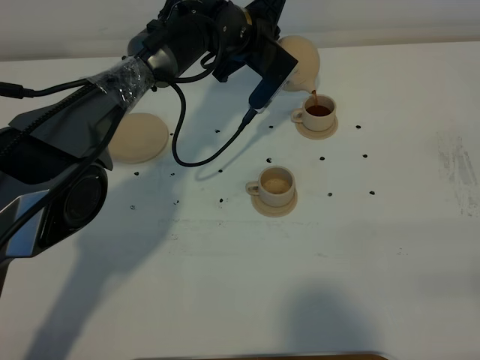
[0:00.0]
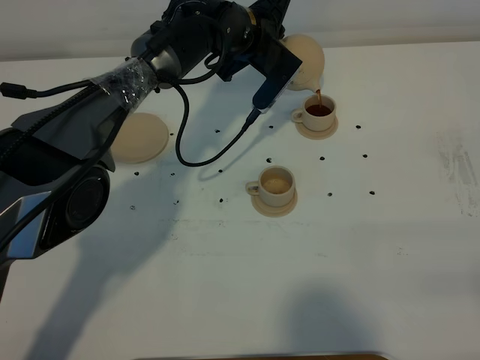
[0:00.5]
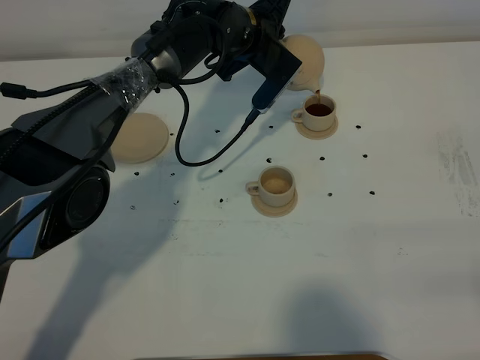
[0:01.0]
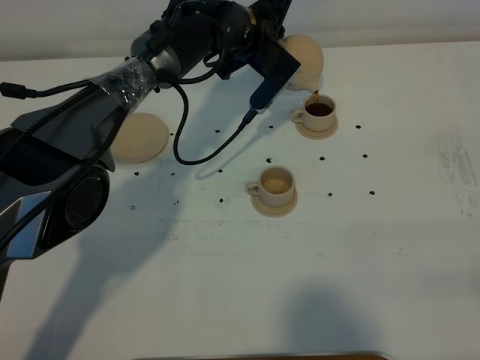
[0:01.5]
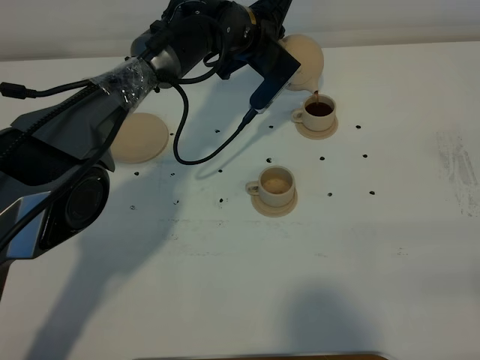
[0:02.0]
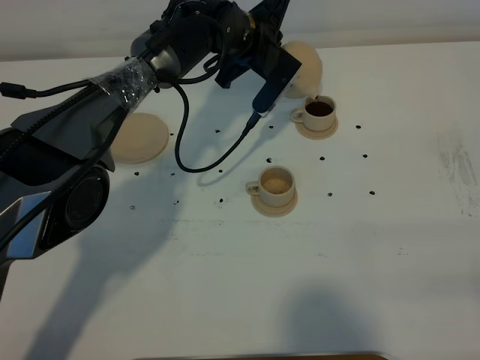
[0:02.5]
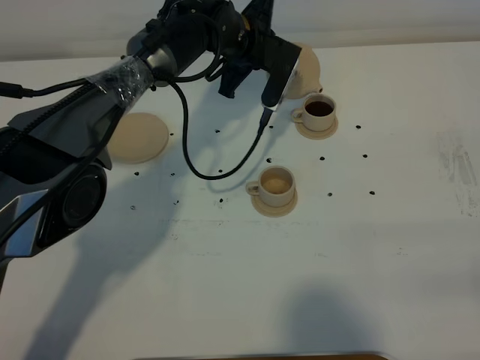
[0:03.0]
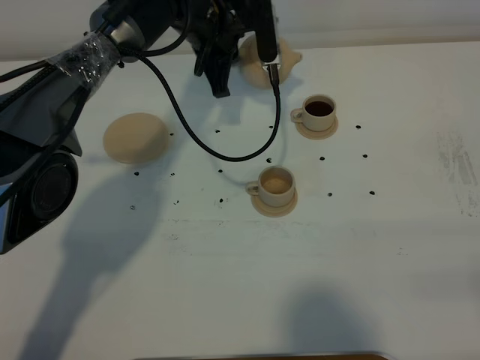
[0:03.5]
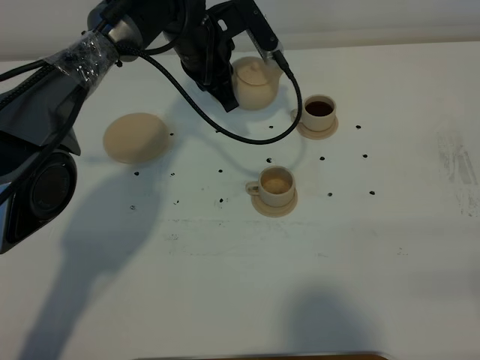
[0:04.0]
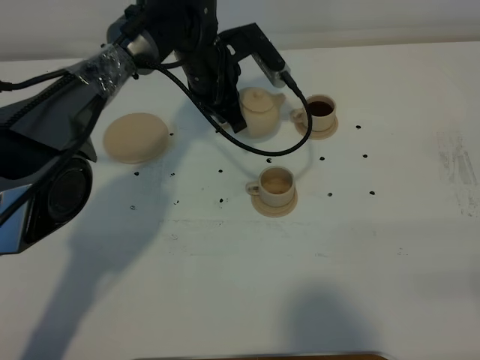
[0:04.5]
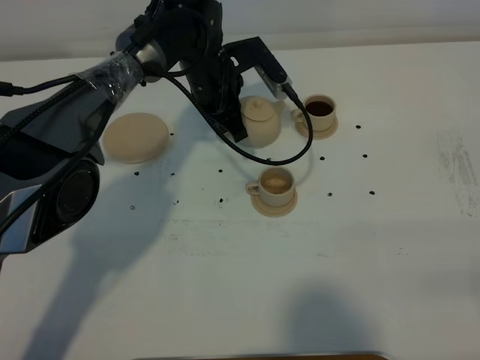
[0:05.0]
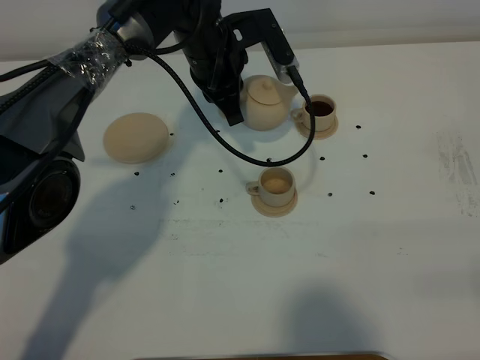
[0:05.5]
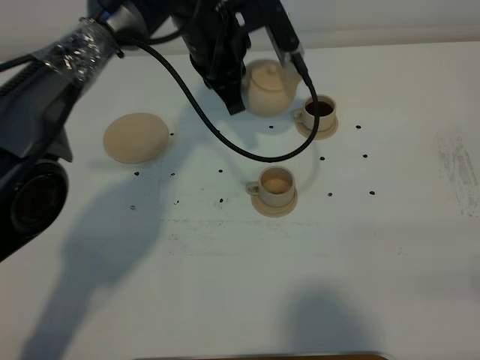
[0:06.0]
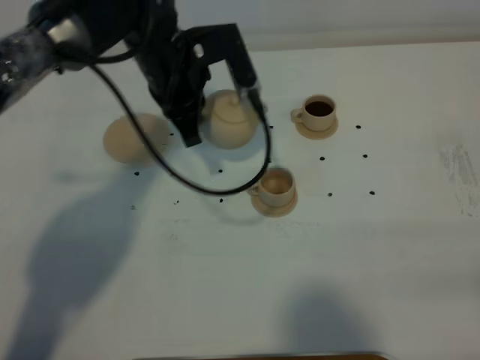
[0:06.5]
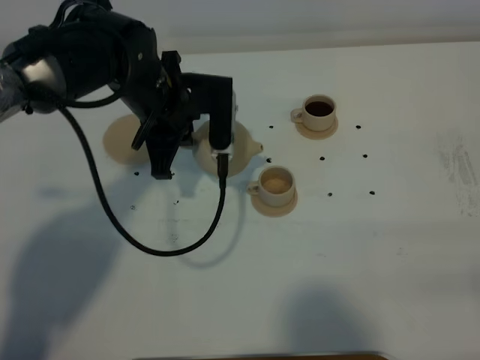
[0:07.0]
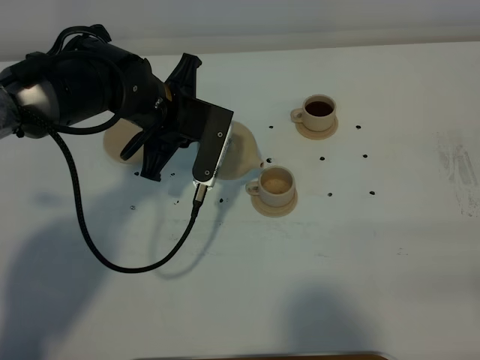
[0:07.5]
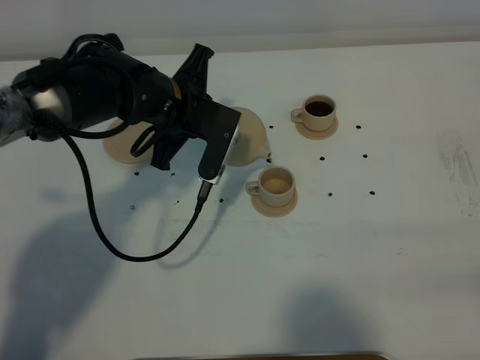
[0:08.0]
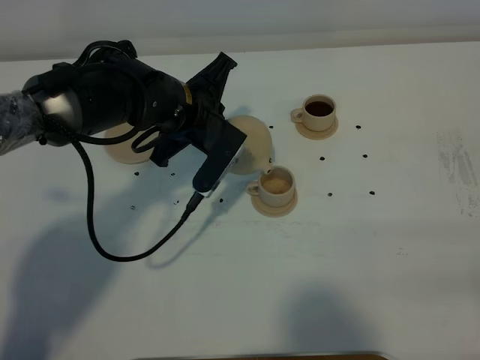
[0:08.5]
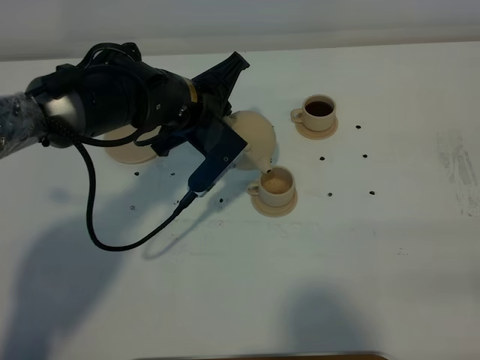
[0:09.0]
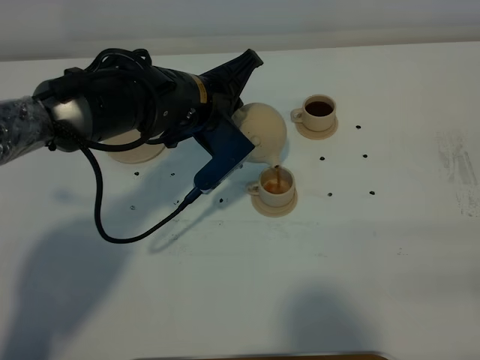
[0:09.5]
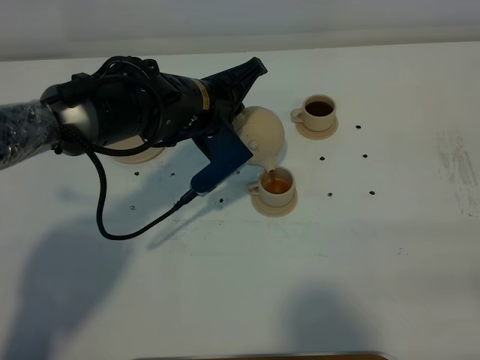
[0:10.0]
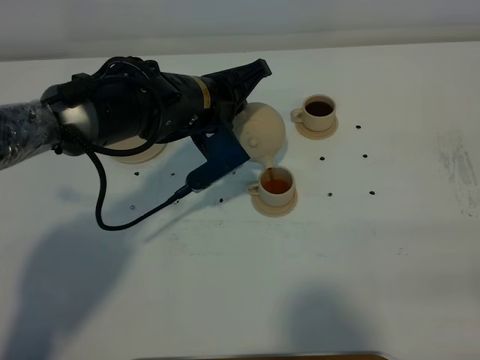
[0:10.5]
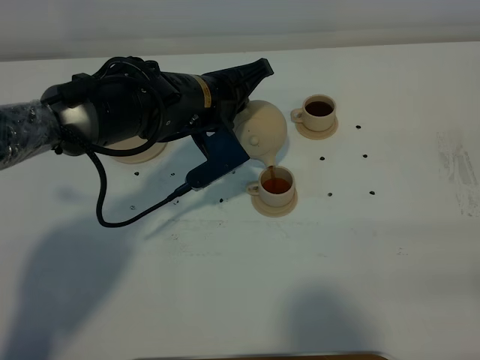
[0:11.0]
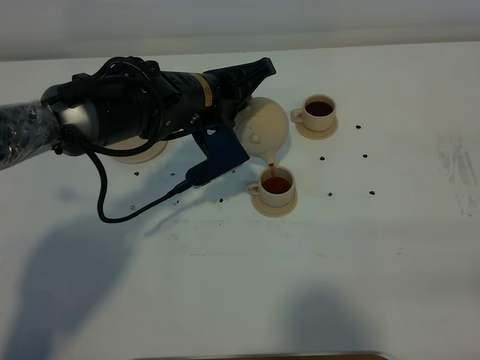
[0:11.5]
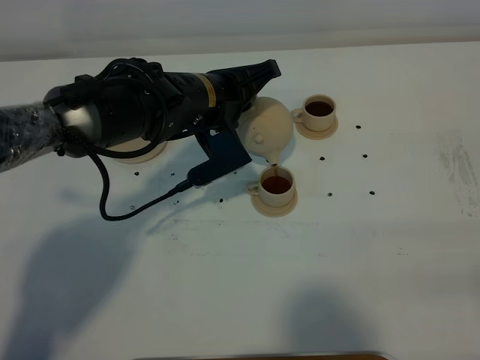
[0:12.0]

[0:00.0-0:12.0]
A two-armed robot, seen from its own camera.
Task of the whole recording: grasp the brown teapot and pour the tea into the two brown teacups one by one, put the brown teapot back in its original place.
0:00.0 to 0:02.0: Neither gripper changes place.
0:02.0 to 0:04.0: The left gripper travels to the left by roughly 5 cm.
0:04.0 to 0:06.0: The left gripper moves upward, some 5 cm.
0:06.0 to 0:08.0: The left gripper travels backward, downward and to the left by roughly 10 cm.
0:10.0 to 0:12.0: The grippers stay close to where they were, moving slightly.

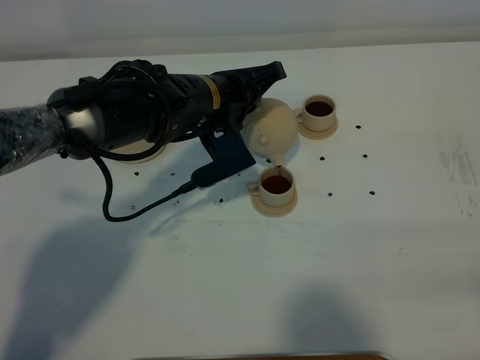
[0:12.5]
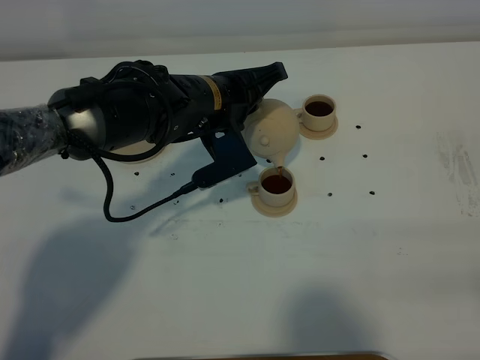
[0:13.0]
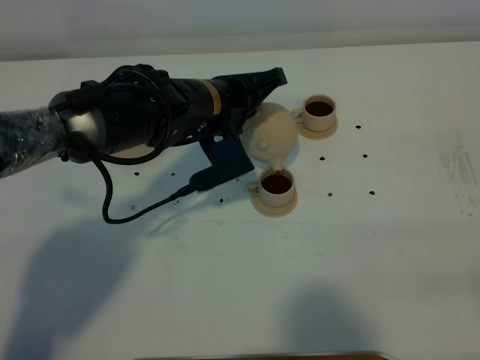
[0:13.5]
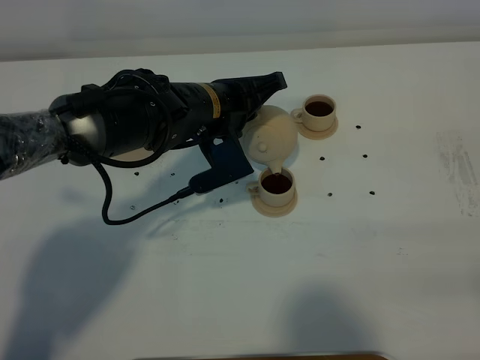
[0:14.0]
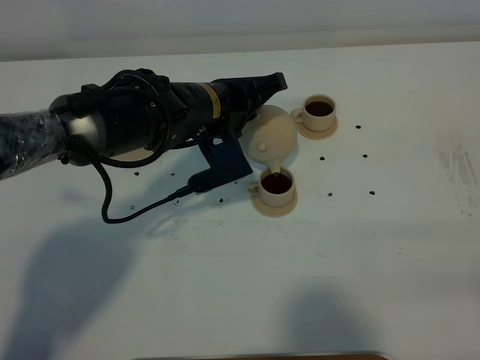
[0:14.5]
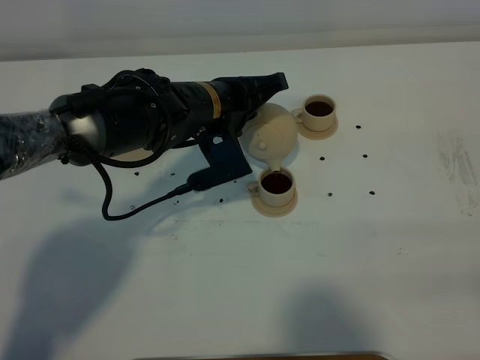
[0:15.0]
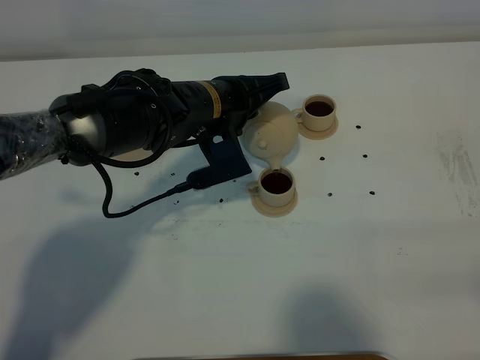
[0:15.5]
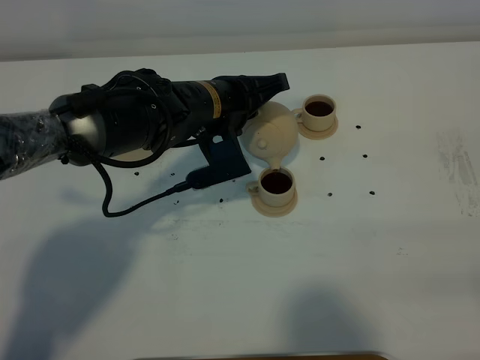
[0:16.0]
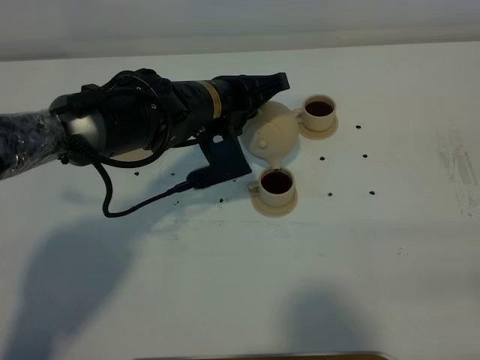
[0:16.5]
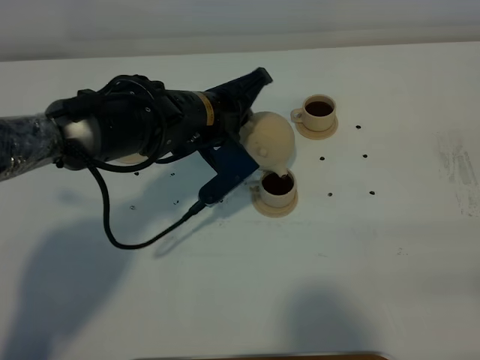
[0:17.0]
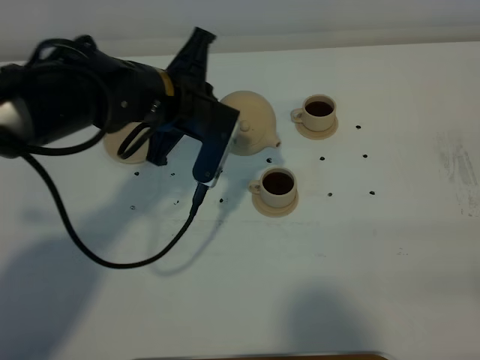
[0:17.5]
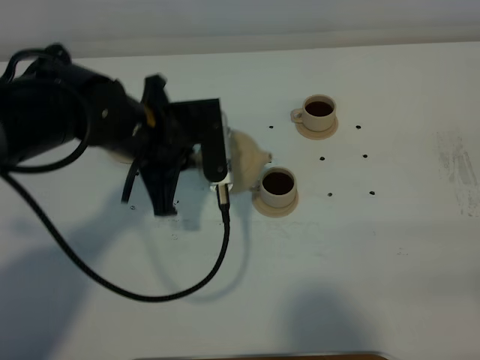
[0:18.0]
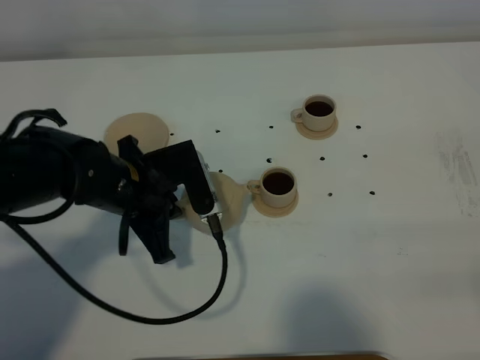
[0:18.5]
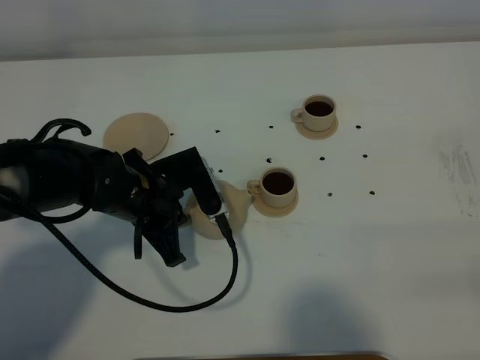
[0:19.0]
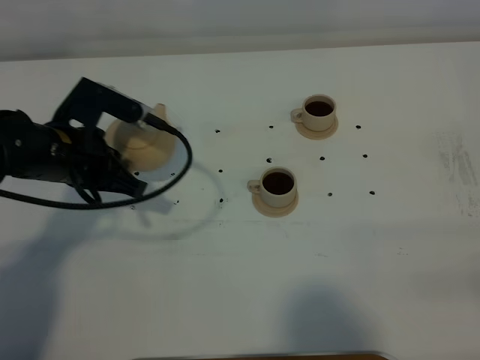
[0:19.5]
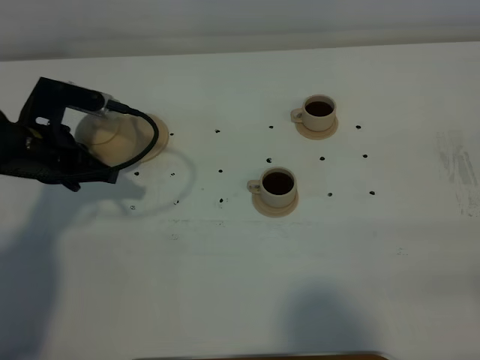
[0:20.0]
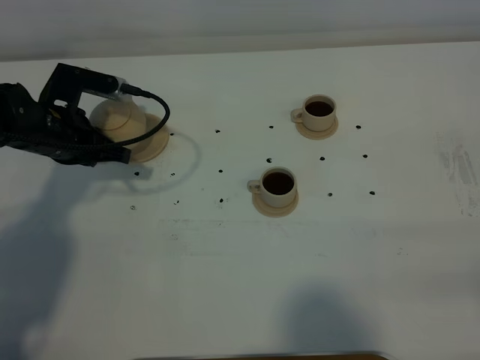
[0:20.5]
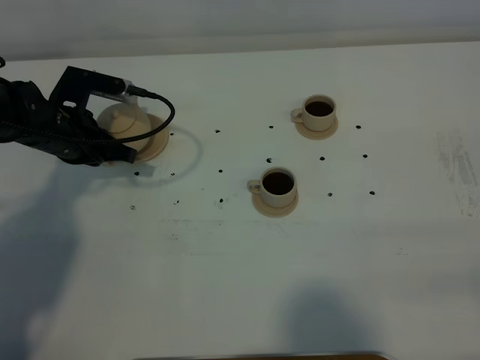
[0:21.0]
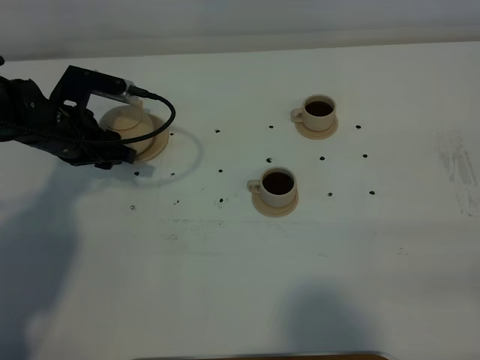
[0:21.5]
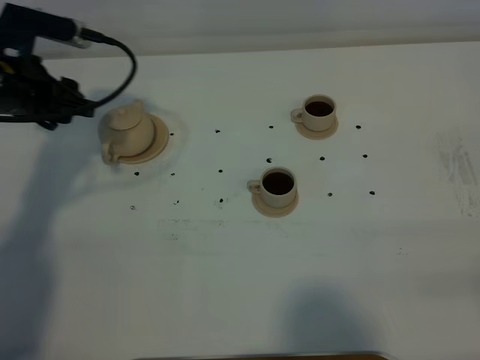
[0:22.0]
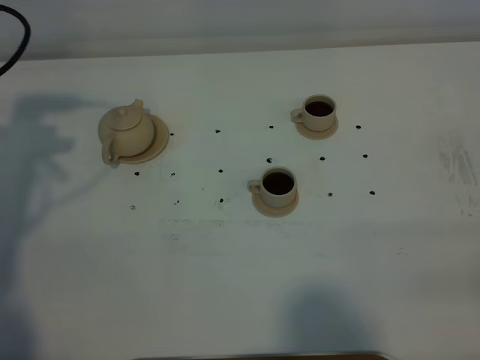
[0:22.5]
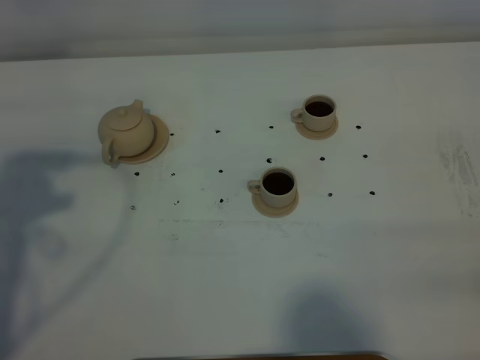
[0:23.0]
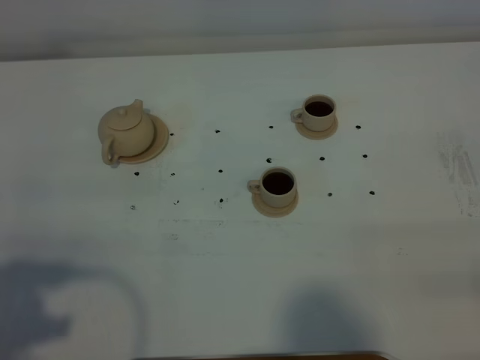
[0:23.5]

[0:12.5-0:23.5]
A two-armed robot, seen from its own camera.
Task of the whole recording: grasp the brown teapot and pour the tea into the two brown teacups one by one, put the brown teapot back in its original place.
Step, 0:12.5 to 0:17.0: Pour tea into the teacup with the left gripper.
0:12.5 to 0:14.5: Both grippers stay about where they are.
0:14.5 to 0:16.0: Both grippers stay put.
0:16.0 to 0:18.0: The left gripper travels to the left and backward by approximately 10 cm.
0:18.0 to 0:20.0: The left gripper shifts roughly 15 cm to the left.
0:20.0 to 0:21.5: The left gripper travels forward by about 5 cm, and opens its fingers.
0:21.5 to 0:23.5: The left gripper is displaced backward and upward by roughly 40 cm.

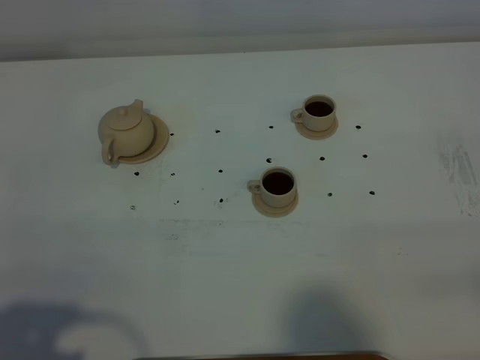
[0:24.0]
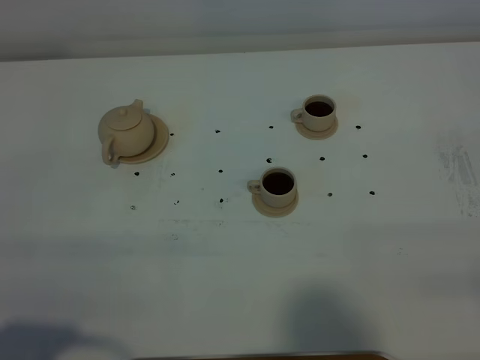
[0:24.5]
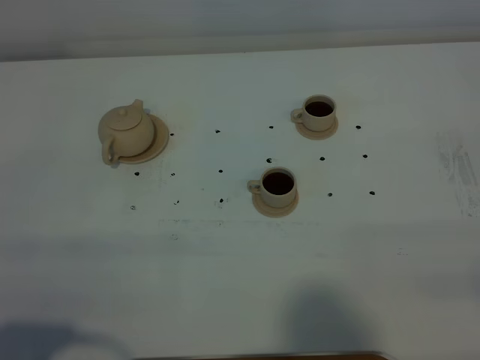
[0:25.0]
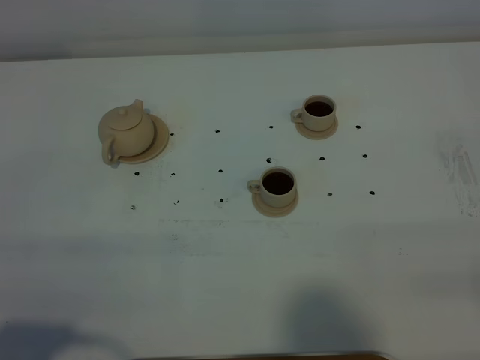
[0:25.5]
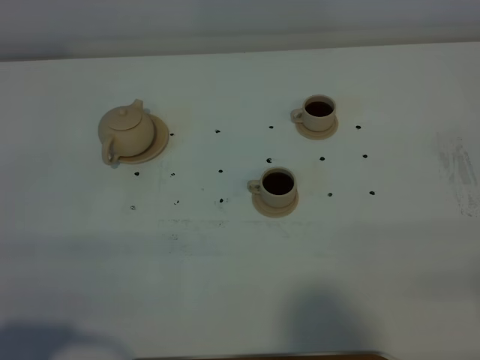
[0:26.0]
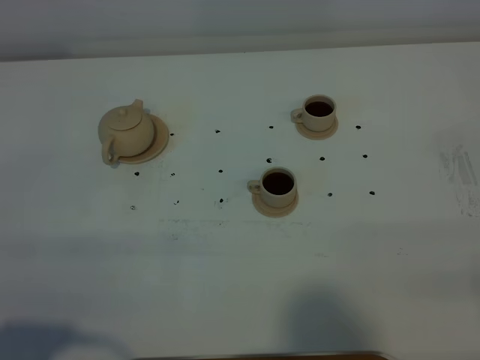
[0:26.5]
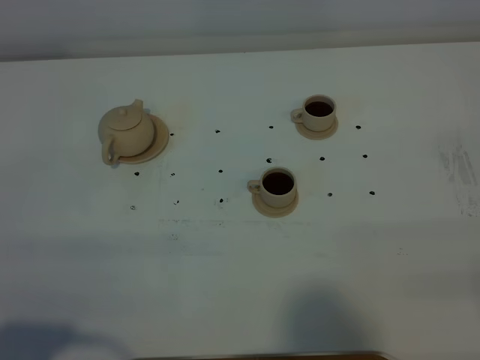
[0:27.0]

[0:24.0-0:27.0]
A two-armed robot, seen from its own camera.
Task of the whole recording: grasp the brown teapot and pour the tea into the two brown teacups one by one, put the brown teapot back in its original place.
0:25.5 to 0:27.0: The two grippers keep their place.
